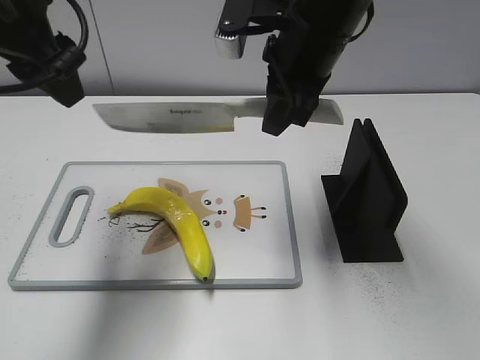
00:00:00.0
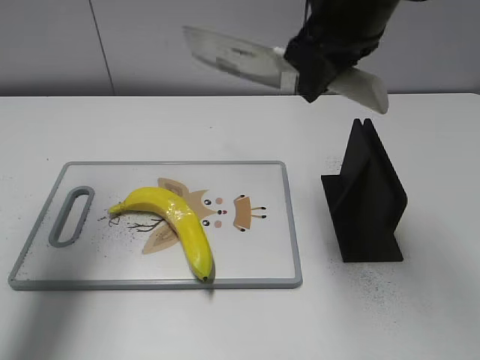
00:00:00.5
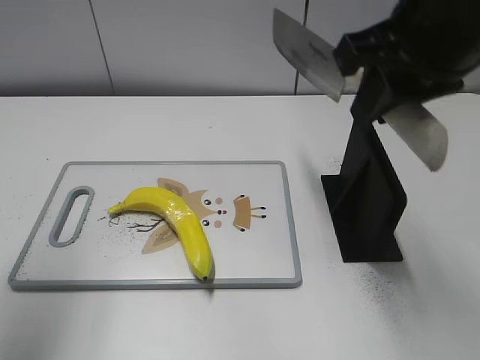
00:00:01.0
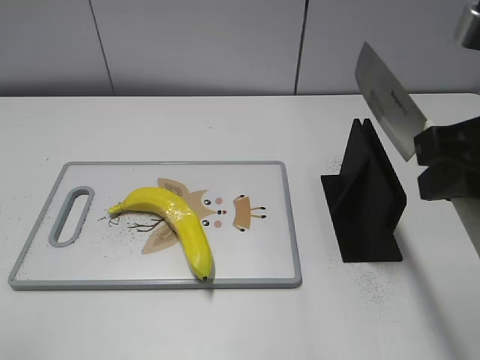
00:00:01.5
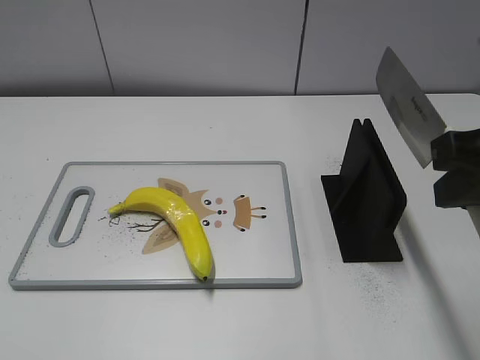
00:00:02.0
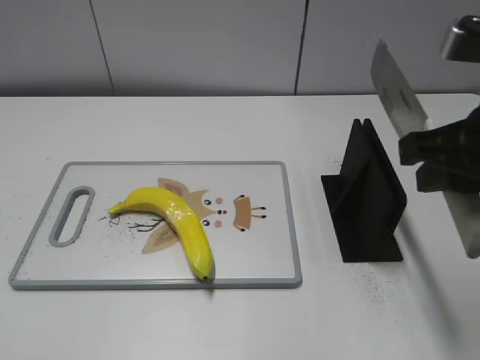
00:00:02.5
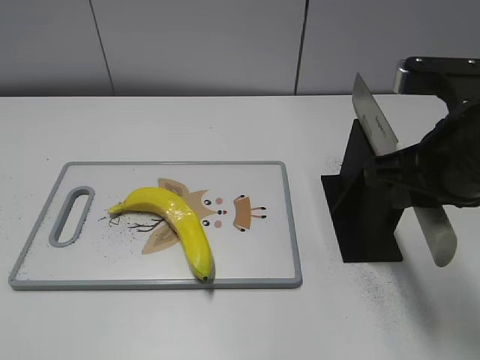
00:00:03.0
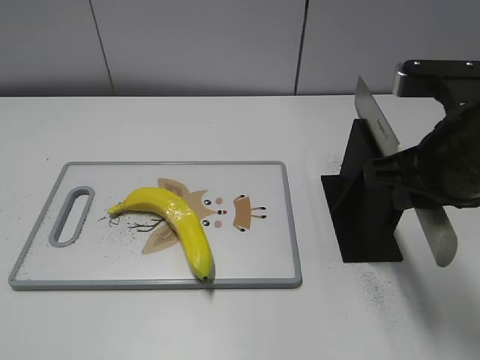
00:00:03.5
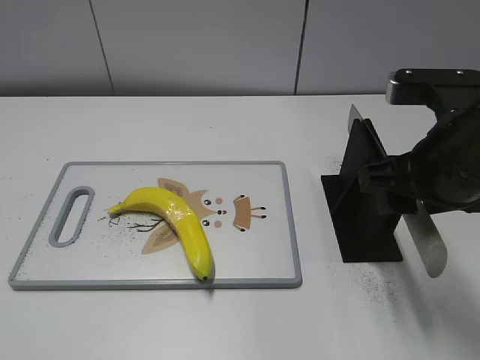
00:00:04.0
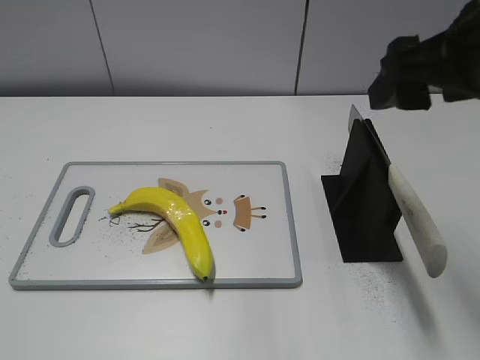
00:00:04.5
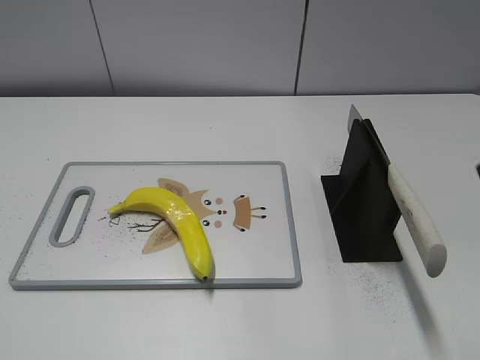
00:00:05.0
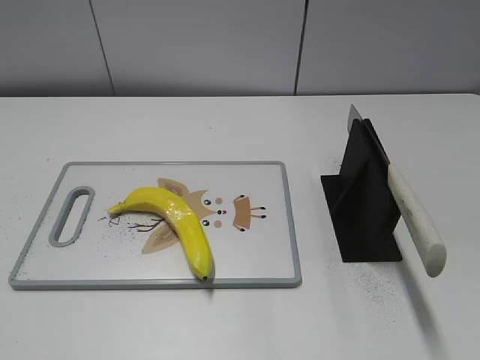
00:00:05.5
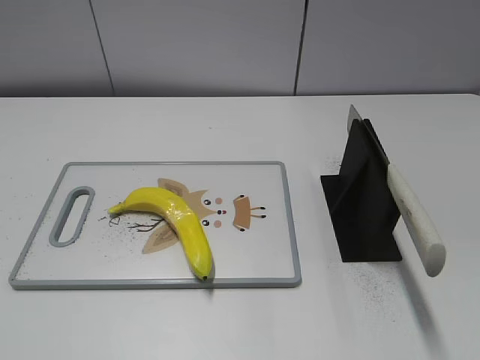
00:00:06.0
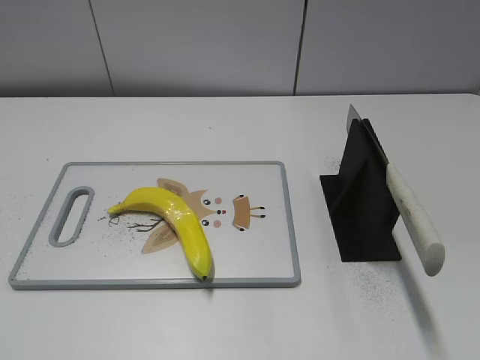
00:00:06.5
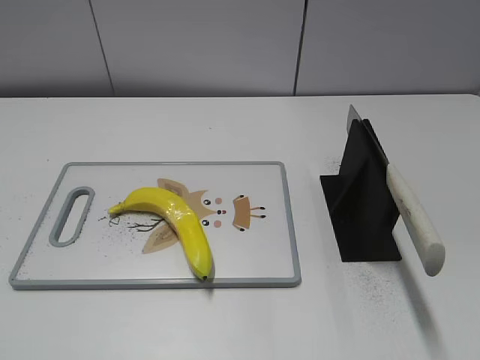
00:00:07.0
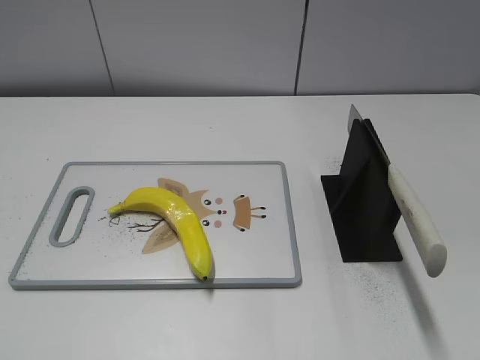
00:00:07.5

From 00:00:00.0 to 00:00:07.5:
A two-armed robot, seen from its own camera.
Task of the whole recording: cut plastic banana.
Step, from 00:00:00.5 to 00:00:01.5: Lift the knife with your right hand.
Step, from 00:00:02.0 to 00:00:07.5: Place the knife on the storage rack with your right hand.
From 00:00:00.0 to 00:00:02.0: The right gripper moves backward and to the right, roughly 20 cm, while the left gripper travels backward and to the left by roughly 30 cm.
From 00:00:02.0 to 00:00:04.0: The right gripper shifts roughly 10 cm downward and forward, and opens.
From 00:00:04.0 to 00:00:05.5: The right gripper moves backward and to the right, approximately 20 cm.
